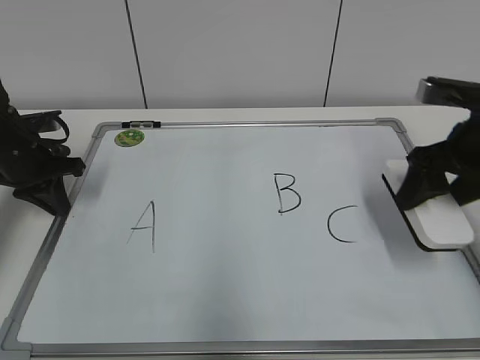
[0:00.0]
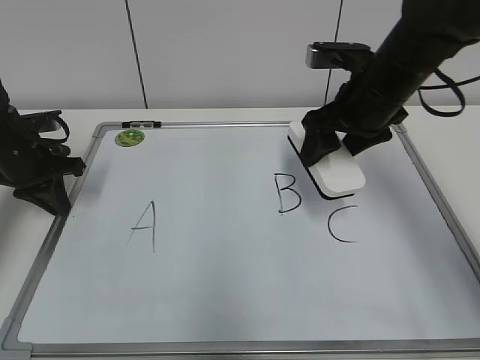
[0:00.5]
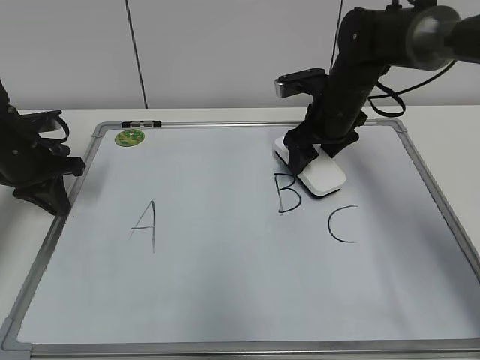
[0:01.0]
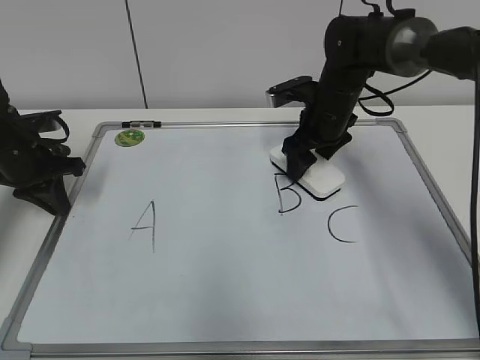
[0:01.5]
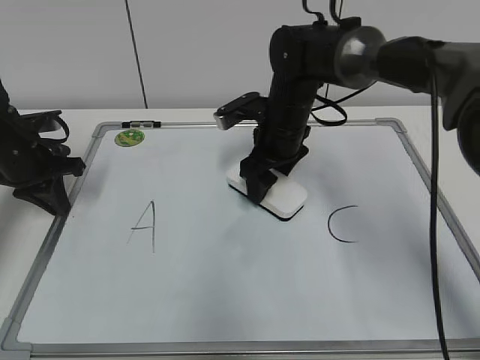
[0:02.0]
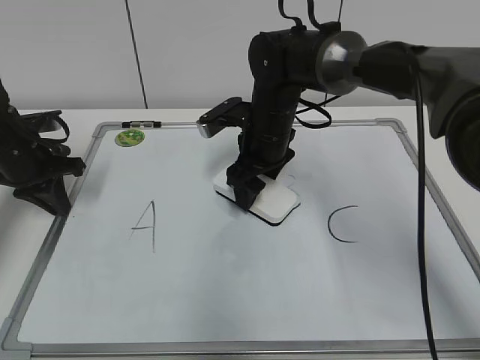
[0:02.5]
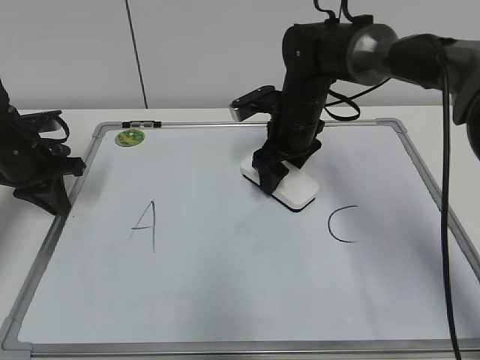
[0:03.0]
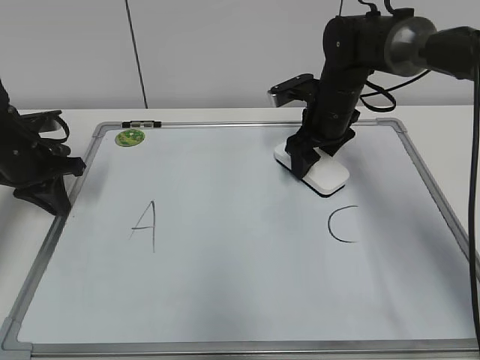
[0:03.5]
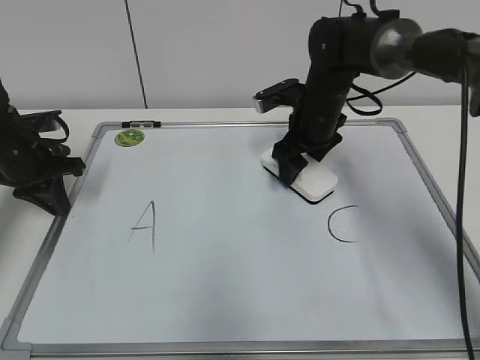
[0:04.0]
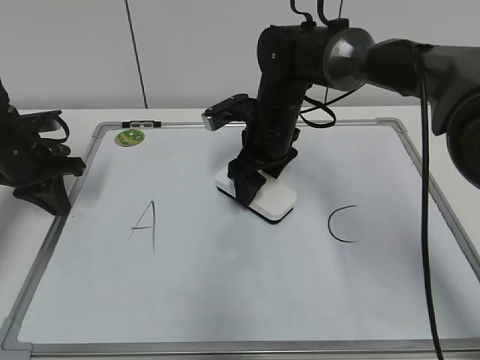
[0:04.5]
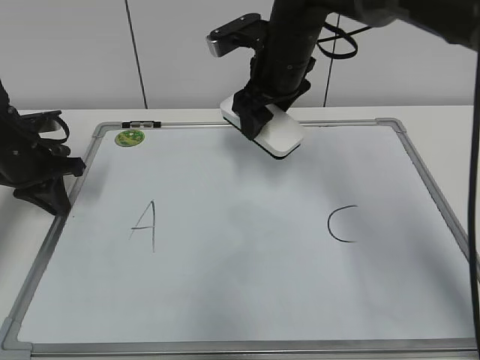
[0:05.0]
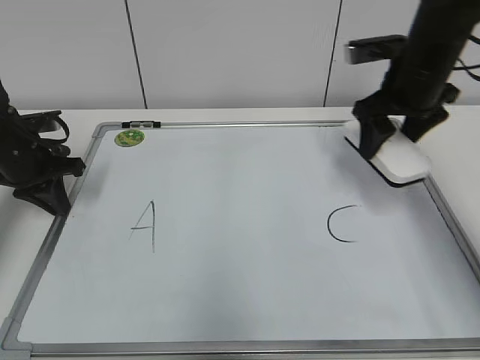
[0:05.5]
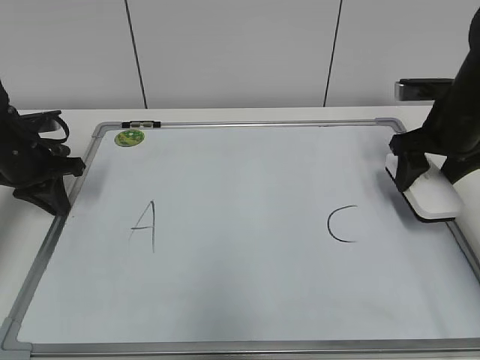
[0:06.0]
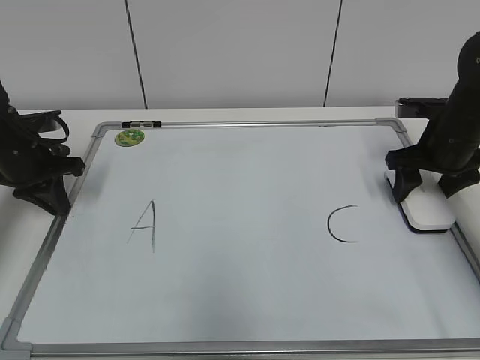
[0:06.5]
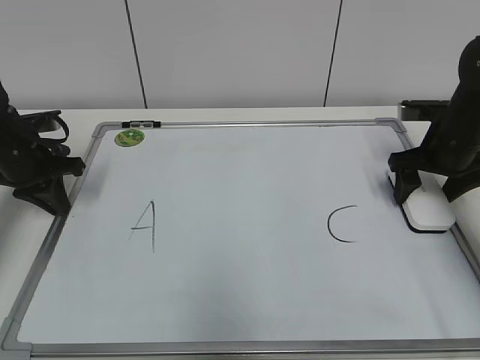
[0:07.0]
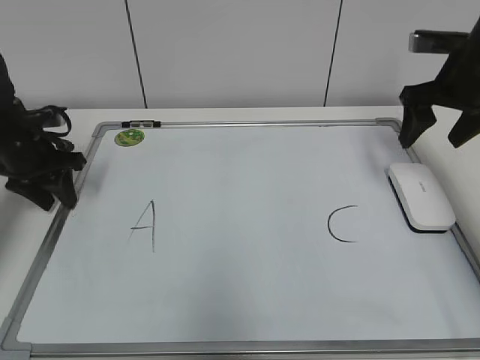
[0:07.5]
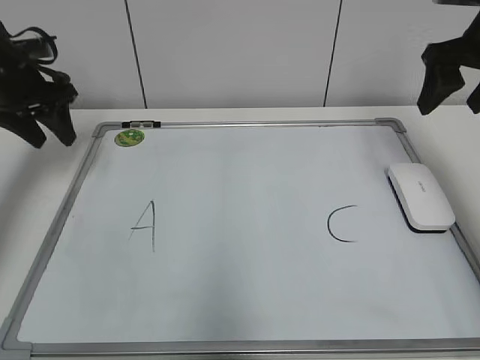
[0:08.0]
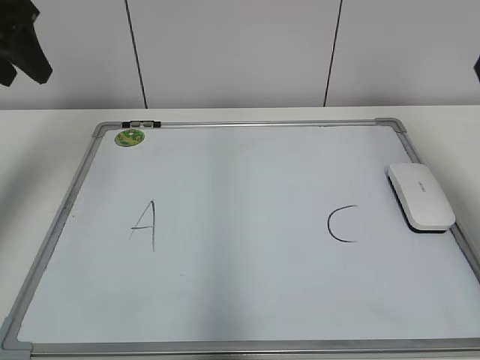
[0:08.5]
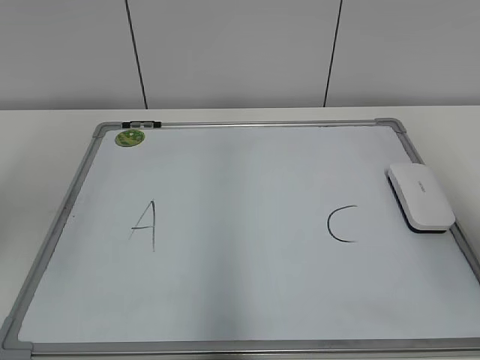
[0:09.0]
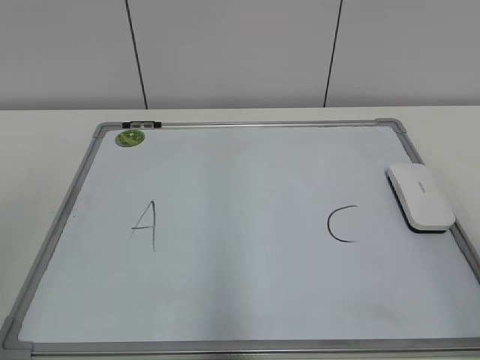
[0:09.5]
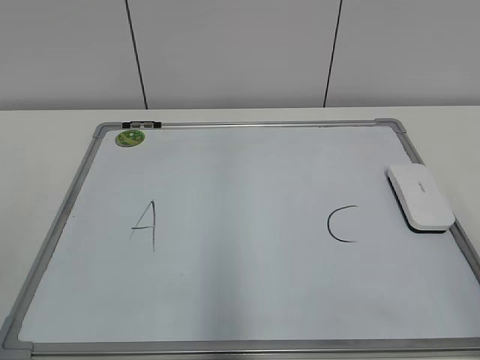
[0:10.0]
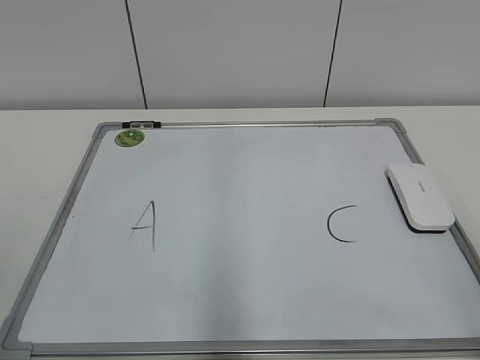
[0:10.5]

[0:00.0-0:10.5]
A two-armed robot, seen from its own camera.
Task of the whole recording: pick up the eraser on the blackboard and erase the letter "B".
Step, 0:00.0 to 0:03.5: Erase the letter B with your right hand.
Step, 0:04.0 to 0:07.0: Put down the eraser with your right hand.
0:00.0 to 0:02.0: The right gripper shifts about 20 cm to the left and forward.
0:04.0 to 0:06.5: The right gripper goes roughly 15 cm to the right.
0:06.5 to 0:08.5: The left gripper moves upward, some 20 cm, and opens up. Meanwhile the right gripper travels upward and backward by about 25 cm, and opens up.
0:08.5 to 0:10.5: The right gripper travels backward and downward by roughly 30 cm. Meanwhile the left gripper travels backward by roughly 30 cm.

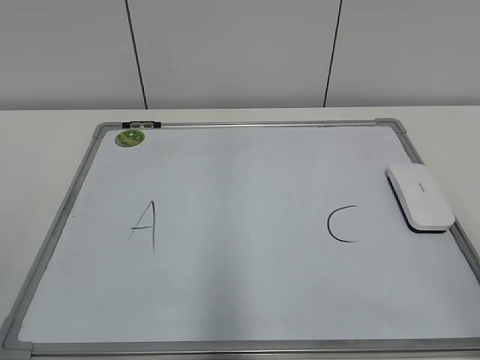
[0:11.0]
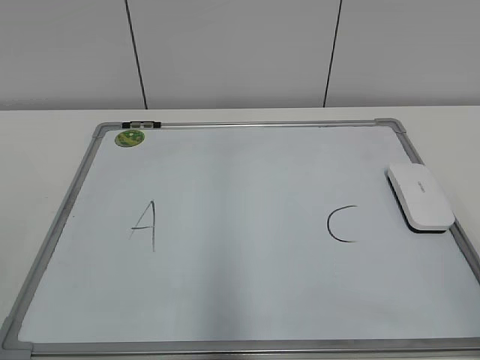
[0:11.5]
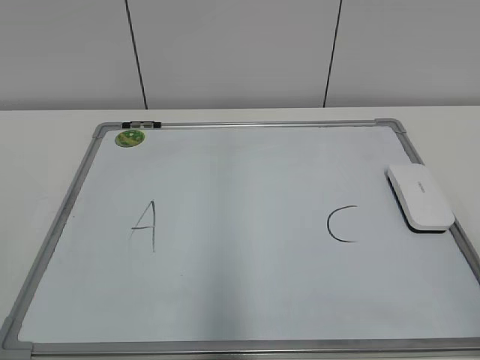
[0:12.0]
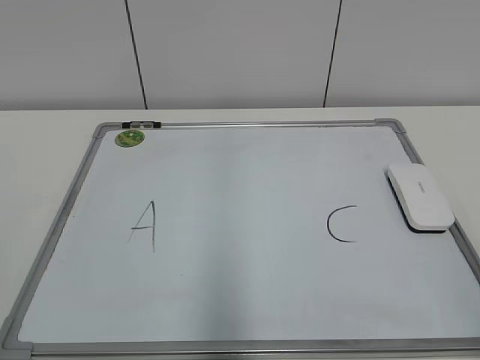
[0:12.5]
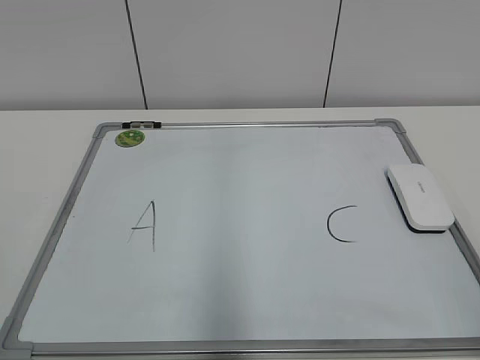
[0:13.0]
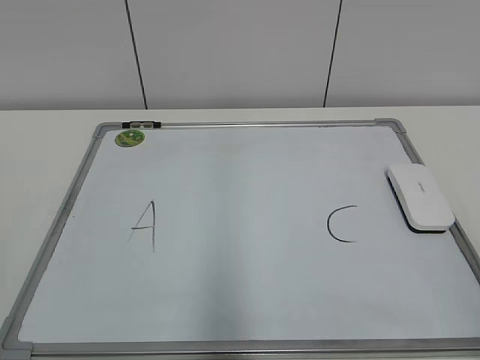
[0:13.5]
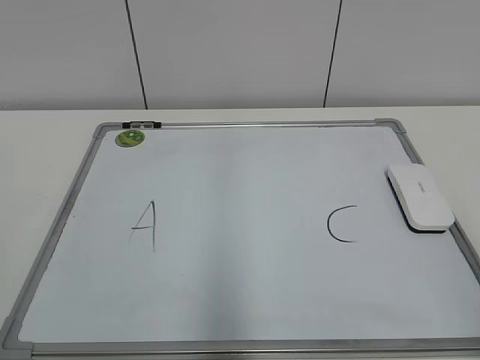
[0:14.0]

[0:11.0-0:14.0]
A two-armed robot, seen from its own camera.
Task of the whole recording: pick up the eraser on the blackboard and erase the letter "B".
0:12.5 to 0:14.0: Both grippers stay about where they are.
